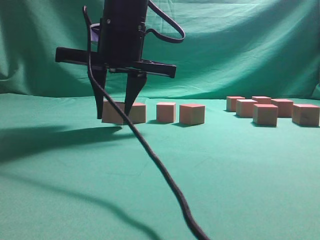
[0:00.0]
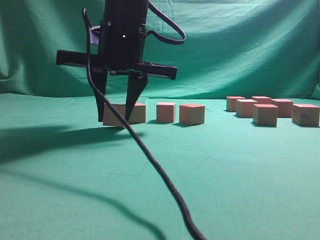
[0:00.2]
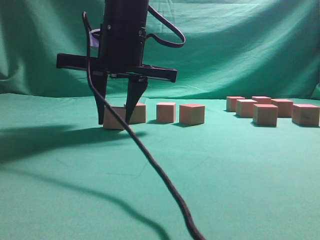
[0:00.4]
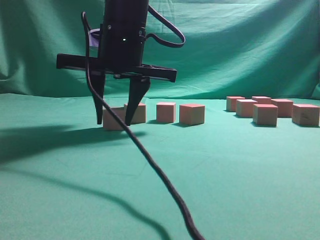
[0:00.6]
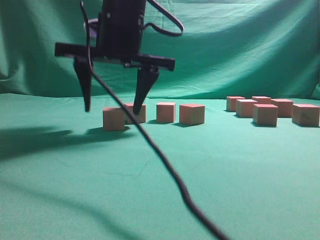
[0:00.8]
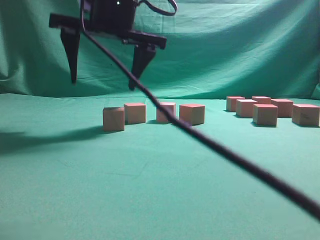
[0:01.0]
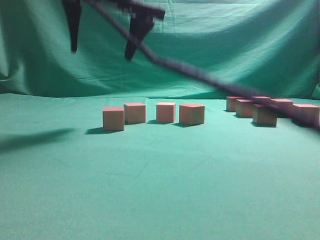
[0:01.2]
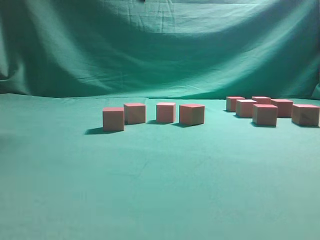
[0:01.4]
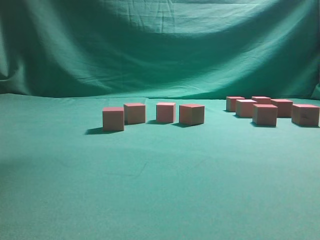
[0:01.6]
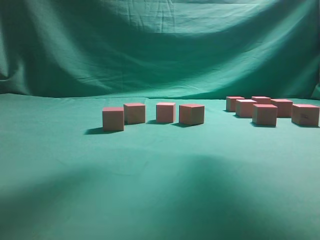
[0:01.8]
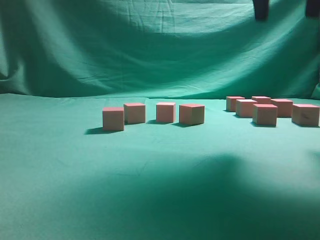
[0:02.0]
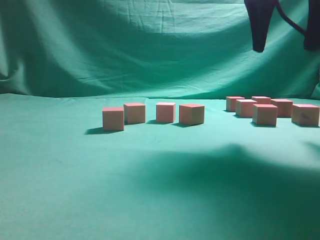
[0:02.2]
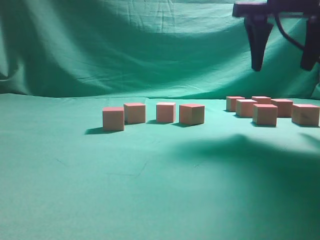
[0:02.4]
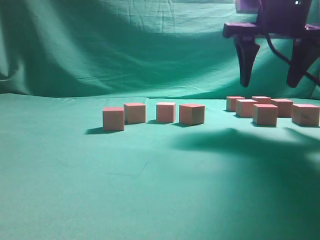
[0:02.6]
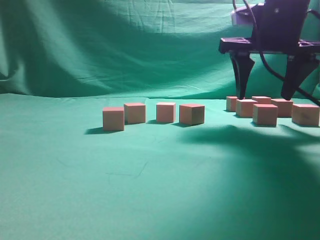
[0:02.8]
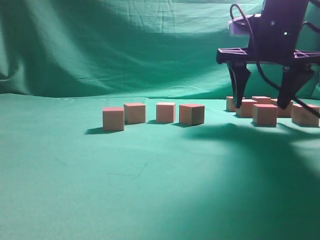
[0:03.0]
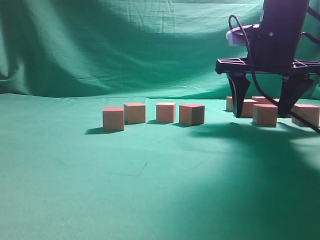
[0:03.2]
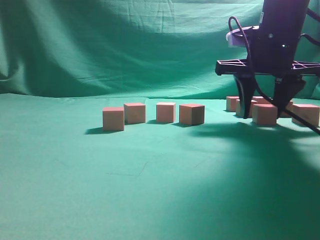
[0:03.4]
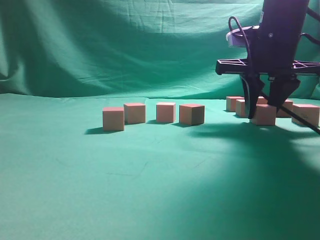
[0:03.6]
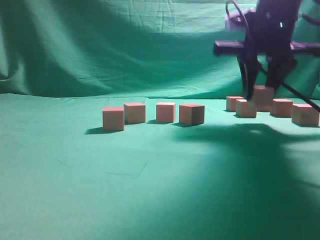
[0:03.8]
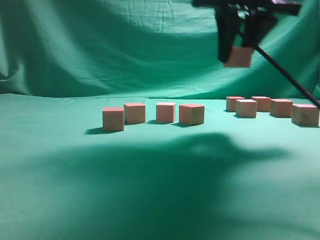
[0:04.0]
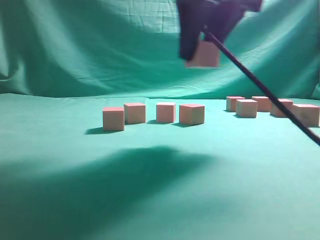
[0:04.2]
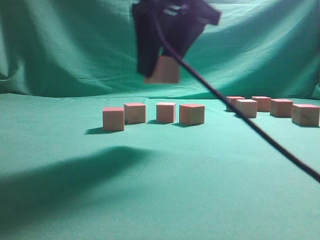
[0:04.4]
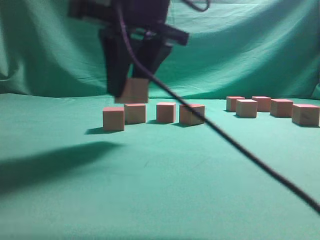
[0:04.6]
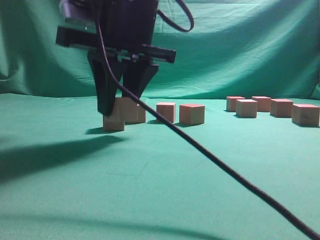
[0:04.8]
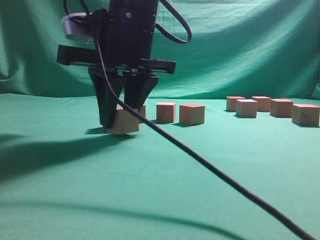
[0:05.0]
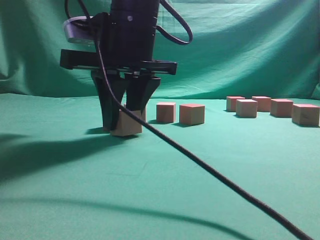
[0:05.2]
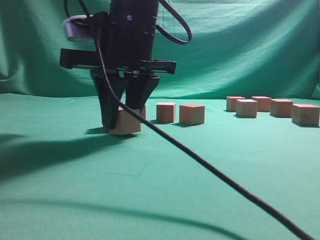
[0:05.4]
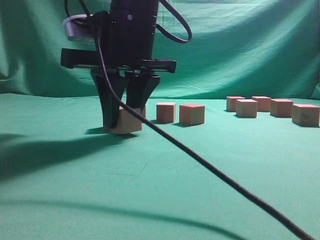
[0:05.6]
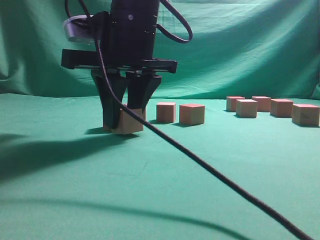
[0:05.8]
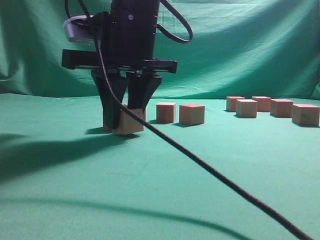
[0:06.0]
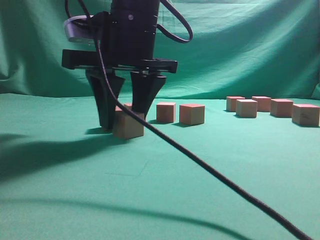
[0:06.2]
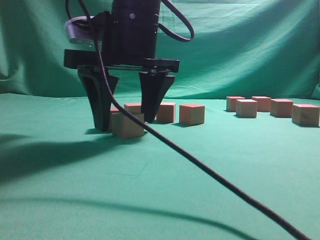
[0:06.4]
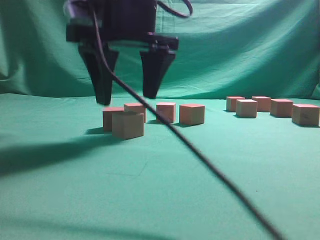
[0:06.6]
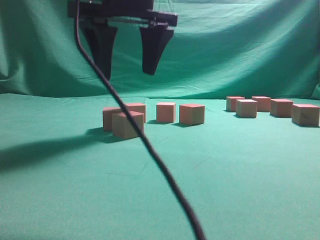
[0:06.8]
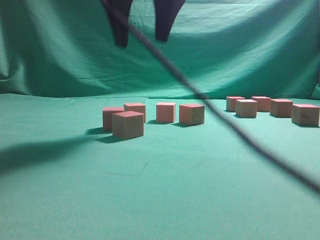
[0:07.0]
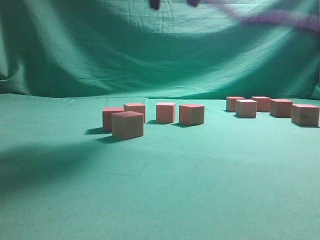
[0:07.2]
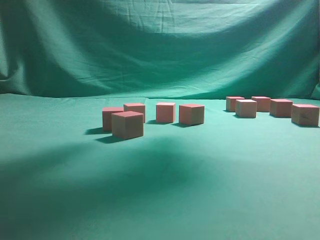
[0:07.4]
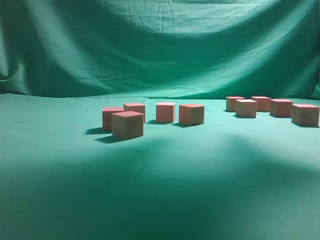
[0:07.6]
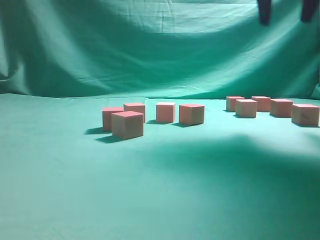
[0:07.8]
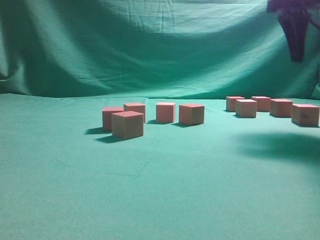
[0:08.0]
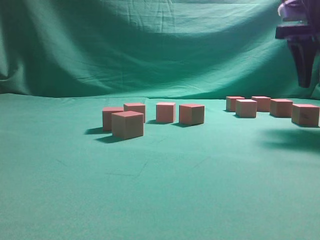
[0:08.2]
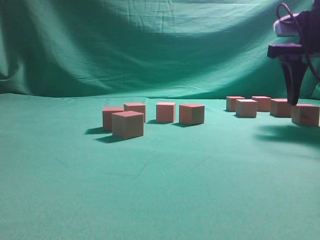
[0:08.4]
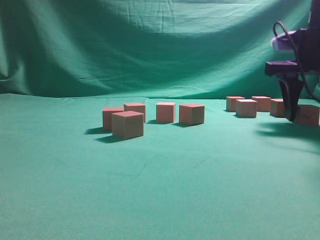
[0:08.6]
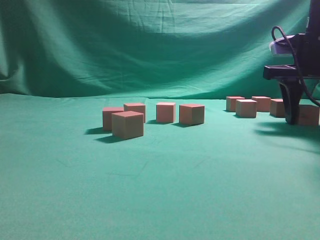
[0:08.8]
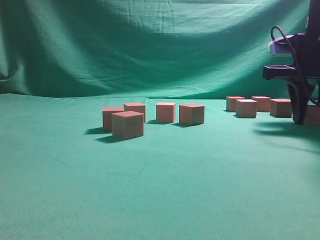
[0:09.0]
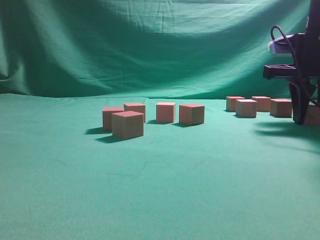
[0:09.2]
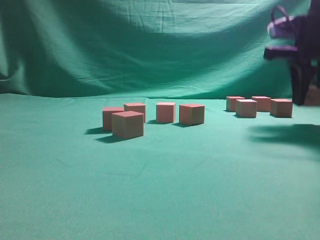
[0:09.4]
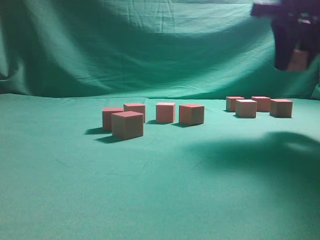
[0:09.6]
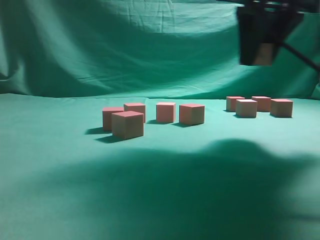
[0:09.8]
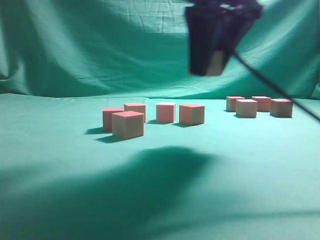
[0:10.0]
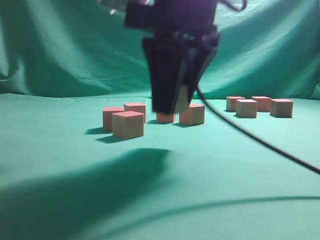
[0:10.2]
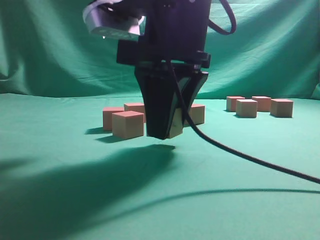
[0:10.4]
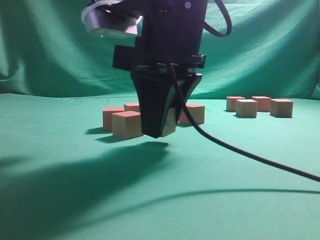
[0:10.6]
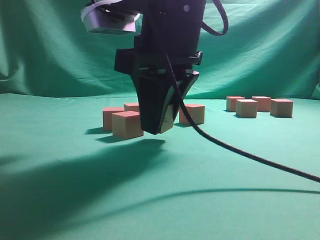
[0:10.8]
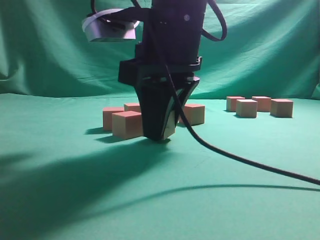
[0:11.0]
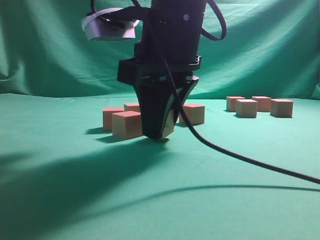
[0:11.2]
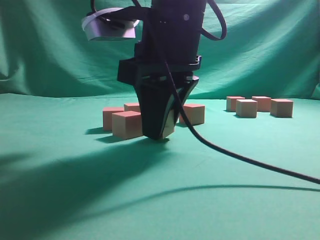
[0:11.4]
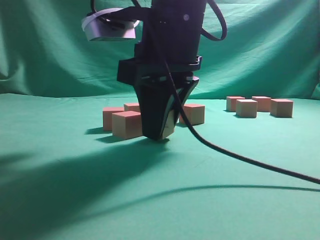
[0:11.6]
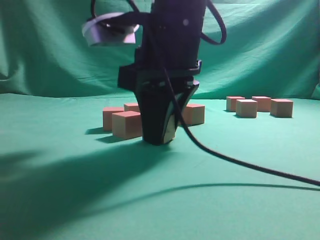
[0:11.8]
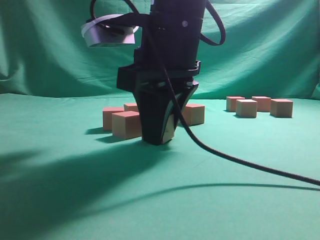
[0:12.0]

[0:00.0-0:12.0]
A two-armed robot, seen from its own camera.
Task of the whole recording: pick up the multiple cubes in two columns one by one and place them in another position on the table.
Step, 0:01.4 to 0:03.8: Pick up the block on the table.
Step, 0:04.2 to 0:07.0: Place the block at the correct position to assemble the letter S.
Step, 0:07.2 to 0:09.6: Pick up the block on the table.
0:00.0 to 0:01.6: The right gripper goes approximately 20 cm upward and to the right, and opens up.
0:01.6 to 0:03.0: The right gripper goes roughly 25 cm downward and to the right.
0:03.0 to 0:04.4: The right gripper travels to the left, backward and upward by roughly 15 cm, and closes its fingers.
0:04.4 to 0:06.0: The right gripper moves to the left and downward, roughly 10 cm.
0:06.0 to 0:07.6: The right gripper heads to the right and upward, covering about 25 cm, and opens up.
0:07.6 to 0:09.0: The right gripper is displaced downward and to the right by about 20 cm, and closes its fingers.
0:09.0 to 0:10.4: The right gripper travels to the left and backward by about 25 cm.
0:10.4 to 0:12.0: There are only small adjustments of the grippers.

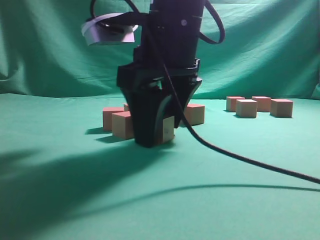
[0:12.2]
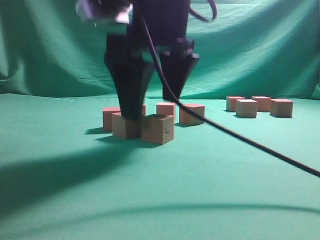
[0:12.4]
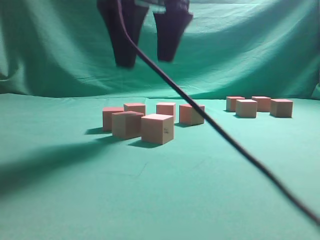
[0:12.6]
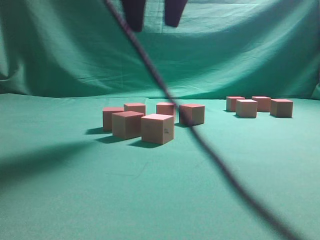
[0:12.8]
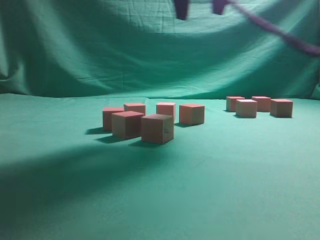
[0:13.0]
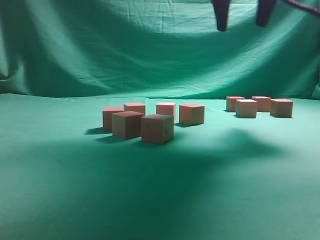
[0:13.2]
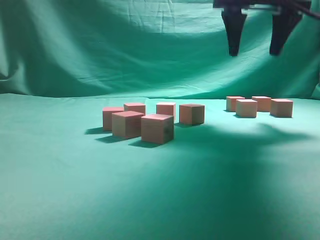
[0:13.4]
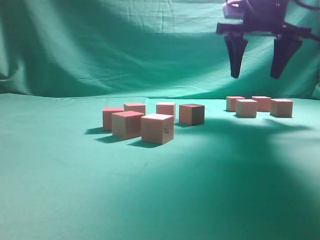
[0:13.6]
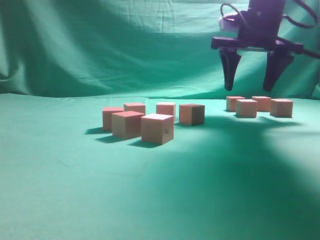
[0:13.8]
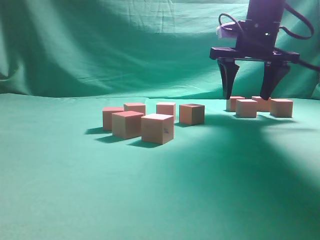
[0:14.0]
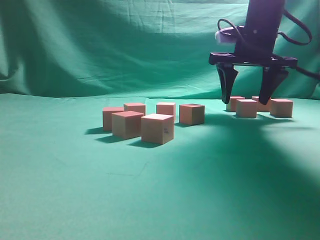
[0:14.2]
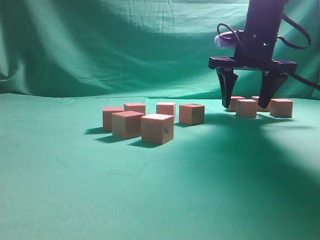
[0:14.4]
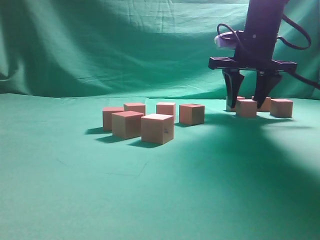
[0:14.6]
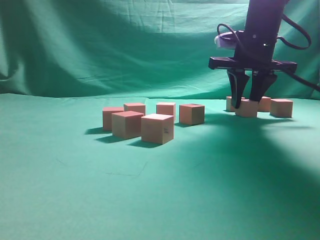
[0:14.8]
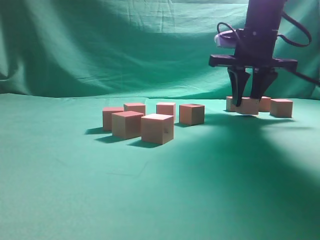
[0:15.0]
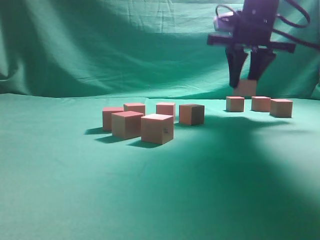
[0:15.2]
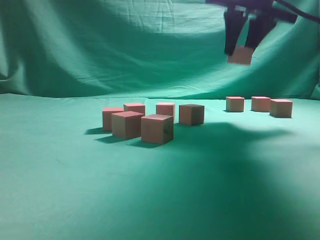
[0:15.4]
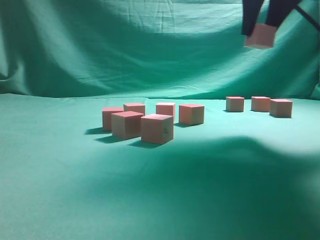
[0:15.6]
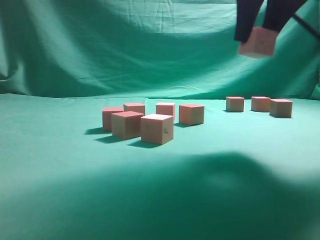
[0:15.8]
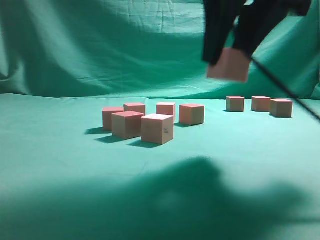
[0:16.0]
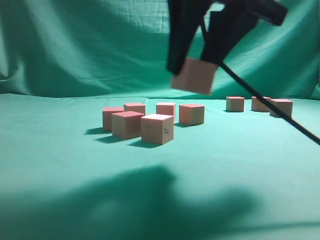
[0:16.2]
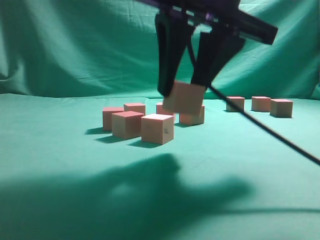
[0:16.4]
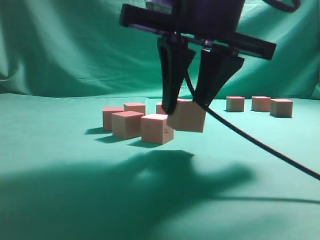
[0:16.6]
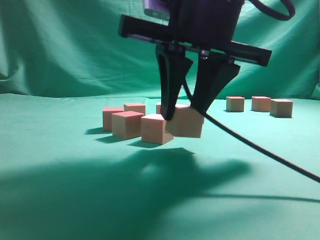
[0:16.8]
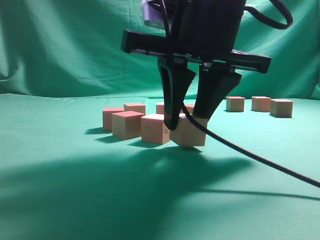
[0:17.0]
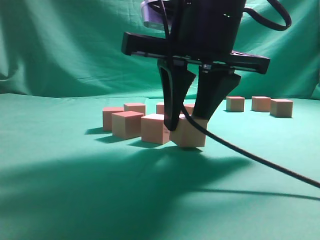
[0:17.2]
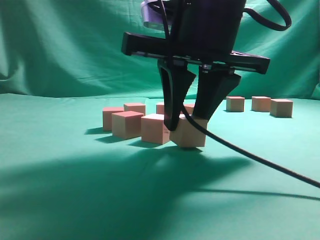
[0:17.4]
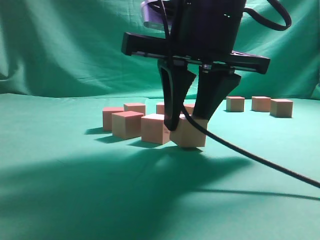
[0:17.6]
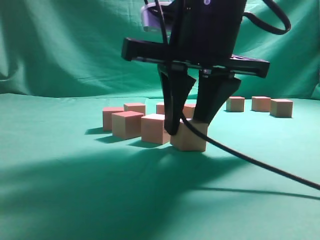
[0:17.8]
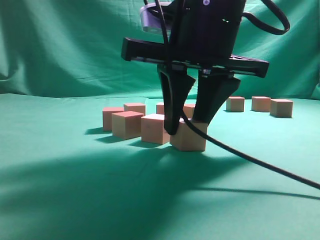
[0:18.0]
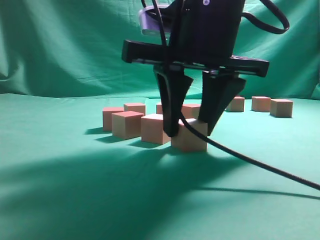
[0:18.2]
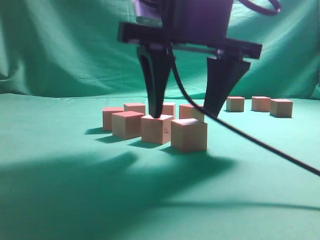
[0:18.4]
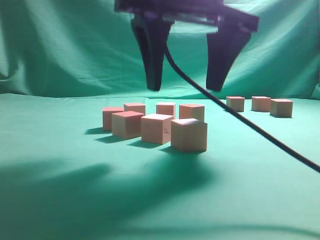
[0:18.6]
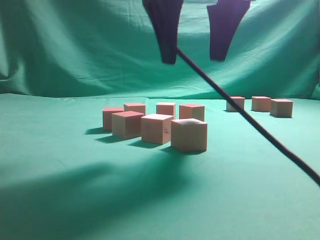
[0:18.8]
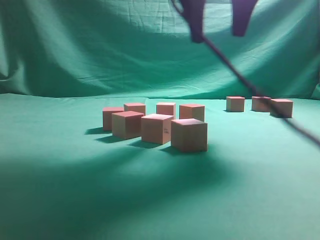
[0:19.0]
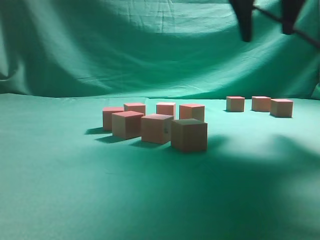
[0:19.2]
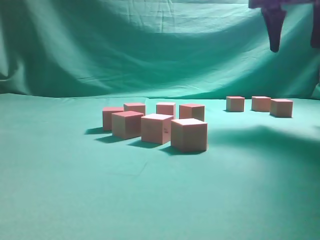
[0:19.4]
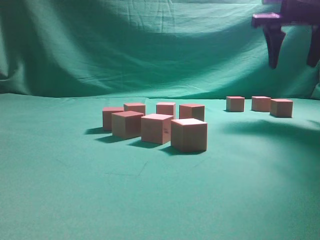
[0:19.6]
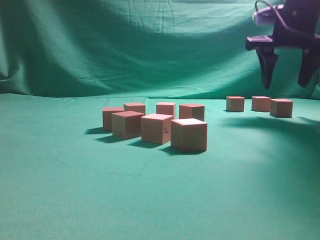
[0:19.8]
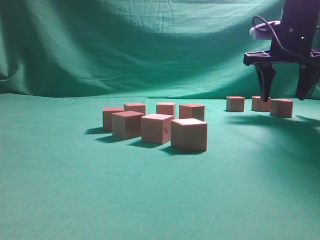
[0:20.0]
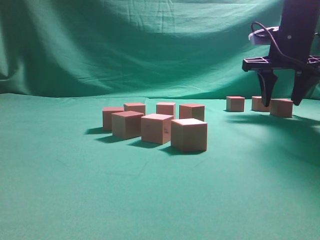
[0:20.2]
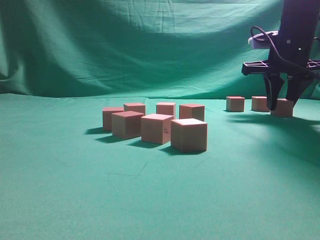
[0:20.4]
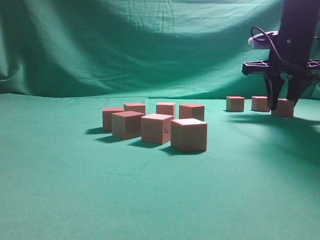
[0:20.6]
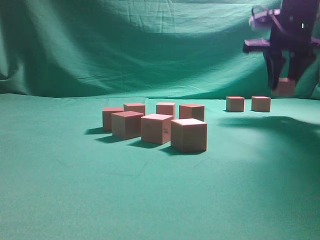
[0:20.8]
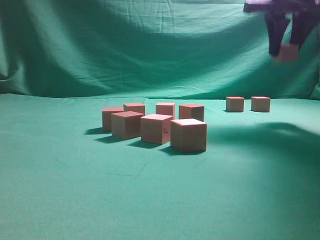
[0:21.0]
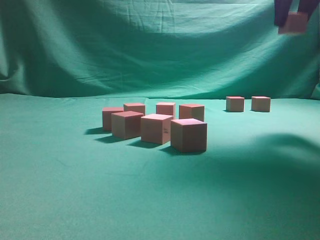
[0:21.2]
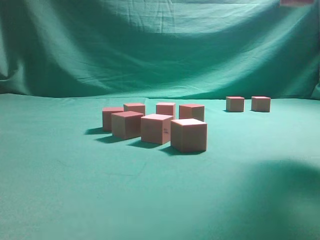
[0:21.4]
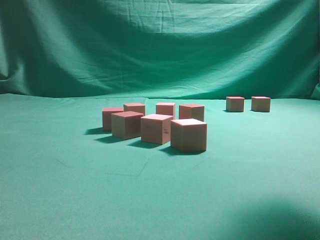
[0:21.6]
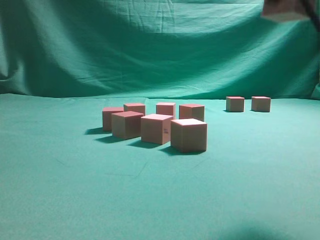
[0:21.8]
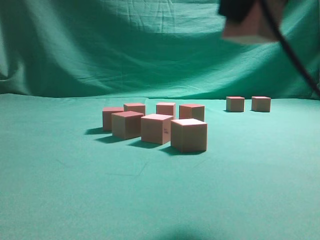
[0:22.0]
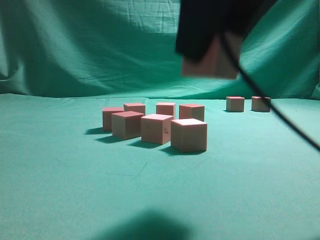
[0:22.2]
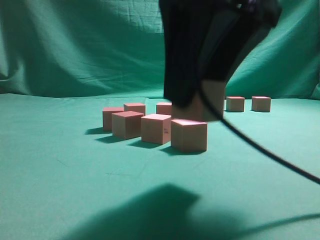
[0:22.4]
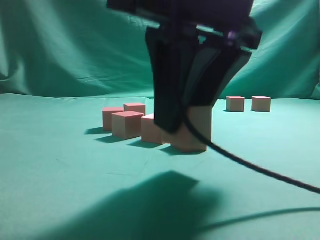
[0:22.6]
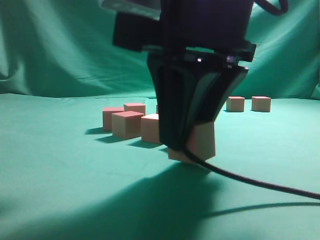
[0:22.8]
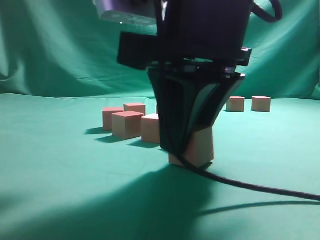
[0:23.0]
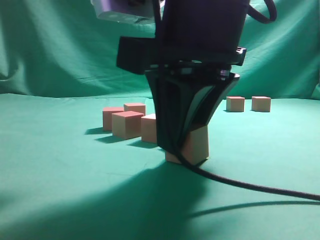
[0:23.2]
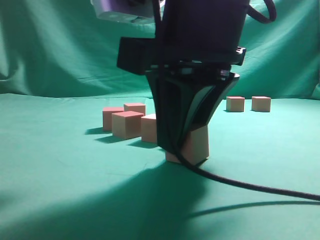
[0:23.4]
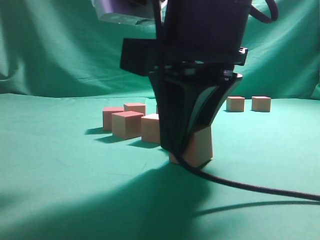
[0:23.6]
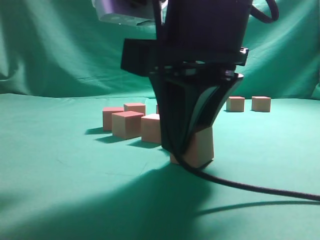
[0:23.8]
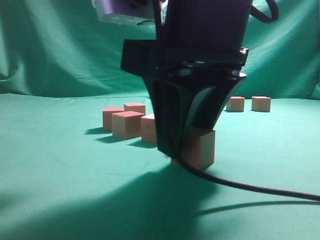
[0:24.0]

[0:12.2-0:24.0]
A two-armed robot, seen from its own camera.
Task of the whole recording: pick up the multiple cubes in two columns one by one and place them in another position on the table.
Step, 0:12.8 to 0:15.2: Pick up the block on the table.
Step, 0:15.6 to 0:19.0: Place the block at the correct position to assemble the letter S.
Step, 0:19.2 to 0:21.0: Pick up the block on the table.
0:12.2 to 0:13.6: The right gripper moves to the right, forward and upward, approximately 25 cm.
0:13.6 to 0:15.2: The right gripper closes up.
0:15.2 to 0:16.6: The right gripper goes approximately 25 cm backward and to the left.
0:18.2 to 0:19.6: The right gripper shifts roughly 25 cm to the right, forward and upward.
0:19.6 to 0:21.0: The right gripper reaches approximately 10 cm downward, then returns, and closes its fingers.
0:21.0 to 0:22.6: The right gripper travels backward and to the left by roughly 30 cm.
0:22.6 to 0:24.0: The grippers stay close to where they were, moving slightly.
